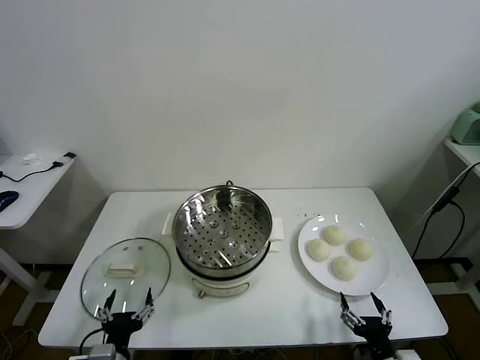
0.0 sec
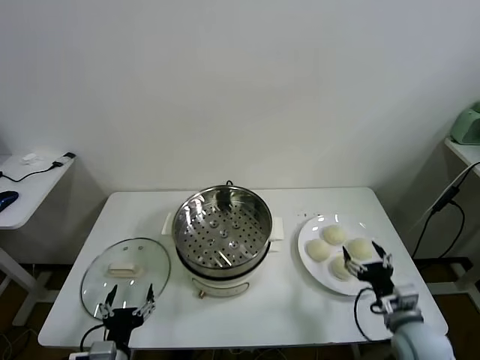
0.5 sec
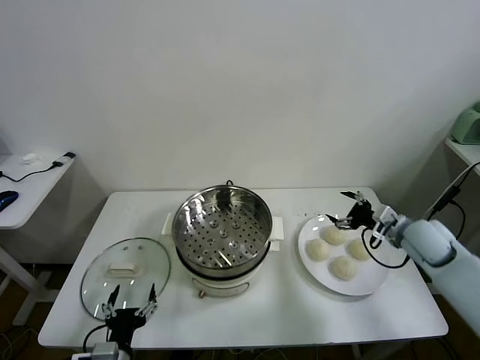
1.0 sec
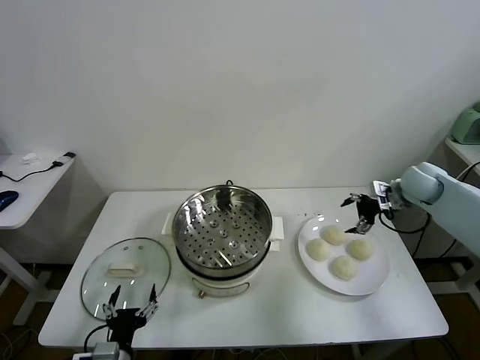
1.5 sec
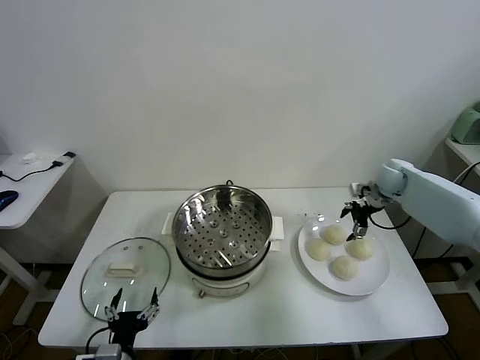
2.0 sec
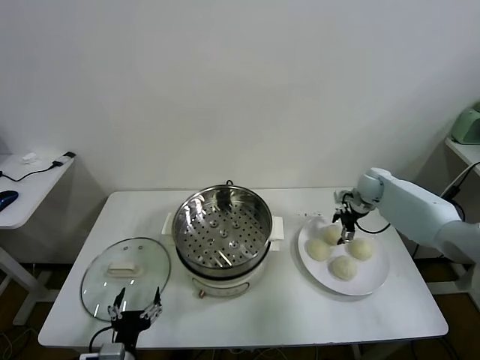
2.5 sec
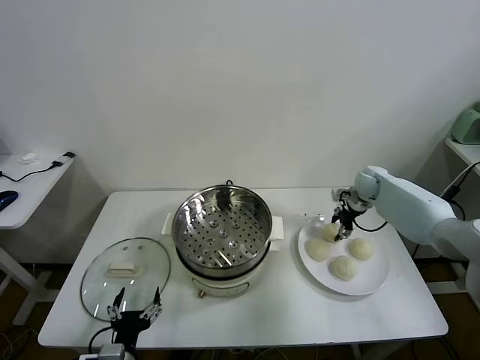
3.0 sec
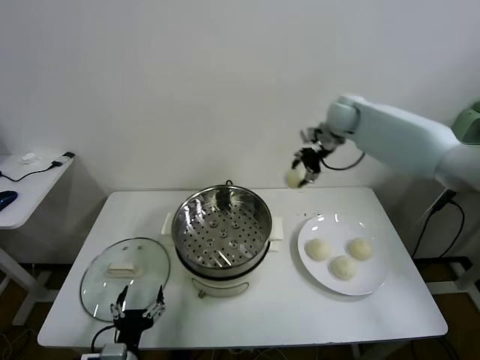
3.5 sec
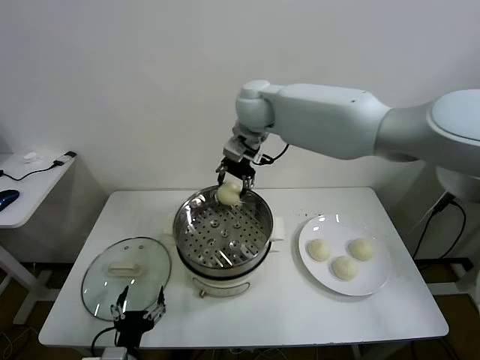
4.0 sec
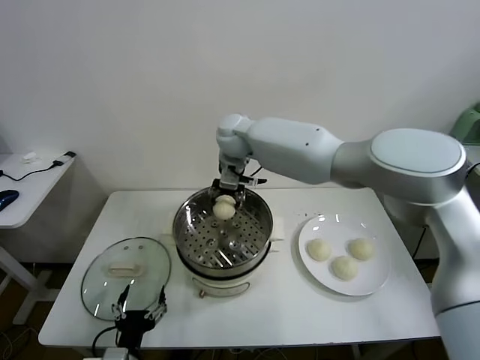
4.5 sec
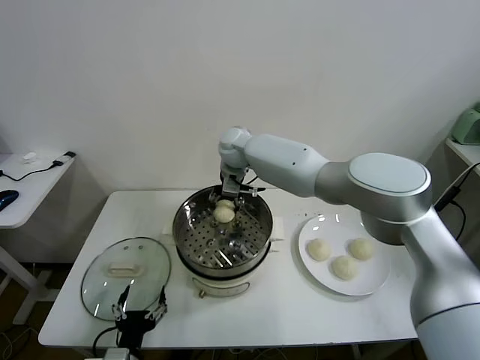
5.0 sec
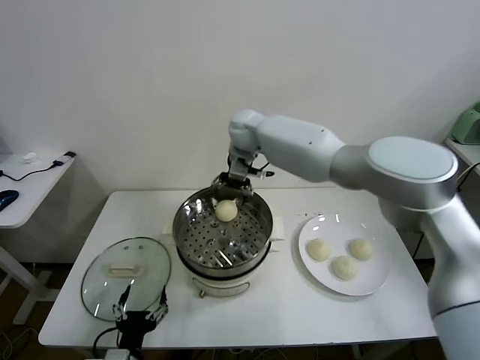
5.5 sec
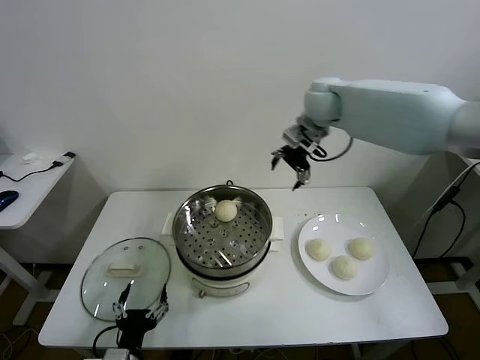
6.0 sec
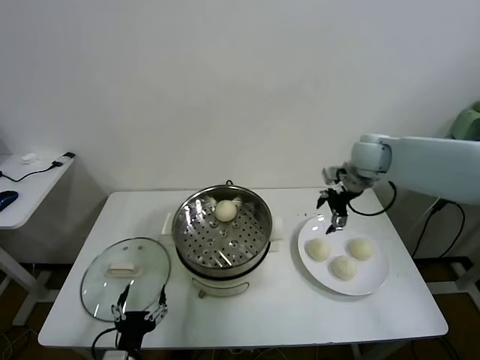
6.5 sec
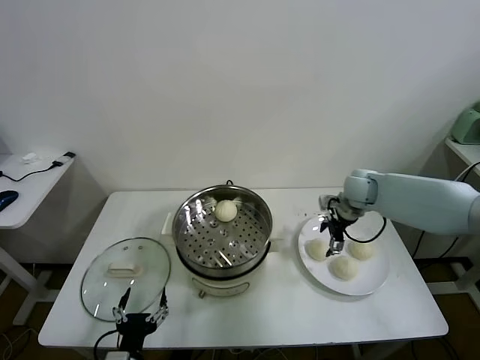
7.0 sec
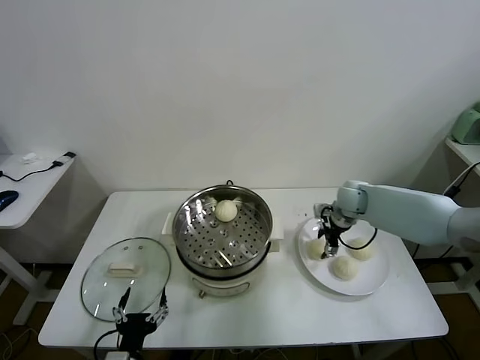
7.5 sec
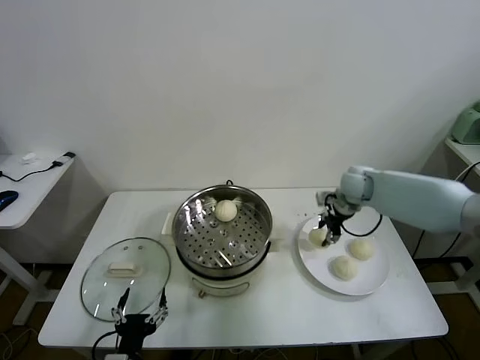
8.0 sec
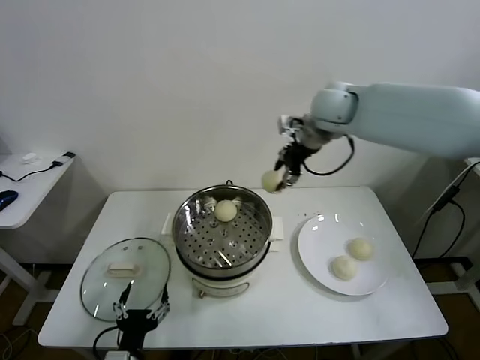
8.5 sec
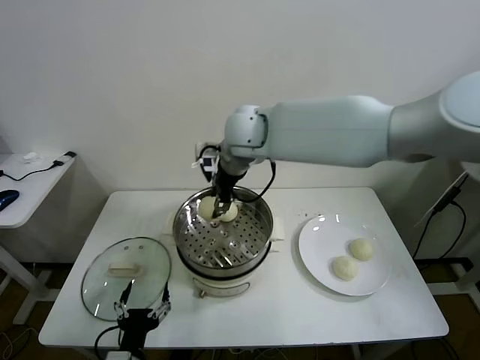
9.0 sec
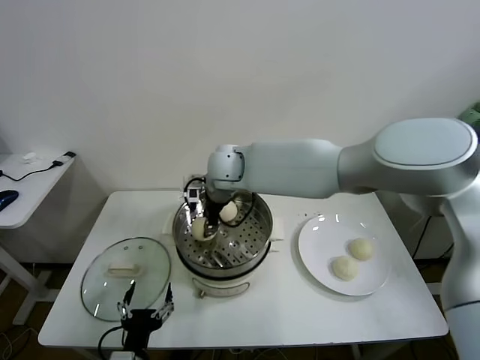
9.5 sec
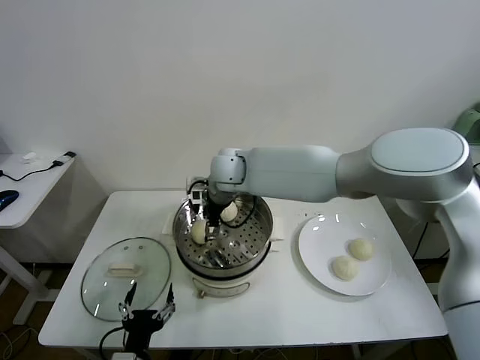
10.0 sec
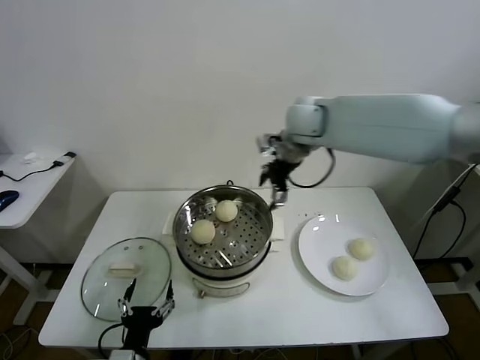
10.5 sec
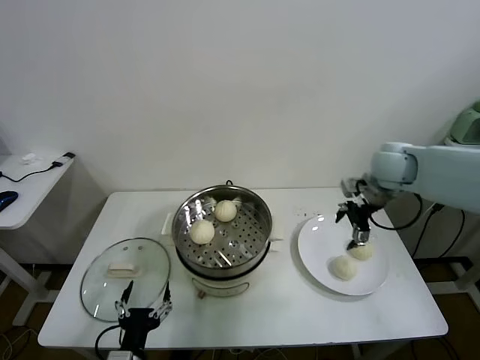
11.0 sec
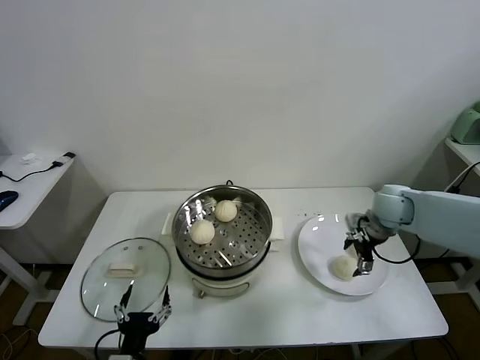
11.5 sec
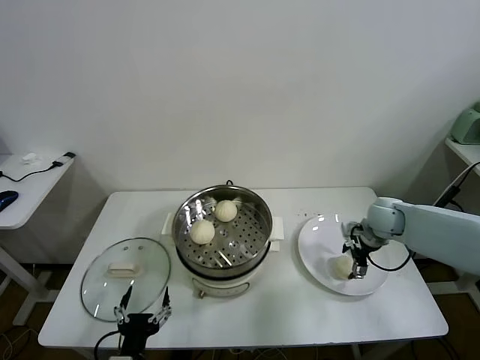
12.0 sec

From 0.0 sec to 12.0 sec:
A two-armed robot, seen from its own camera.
Task of the whole recording: take steamed baozi put them in steamer.
Step, from 0.0 sec to 2.5 sec: Grasp the baozi in the plate with right gripper.
Step, from 3.0 sec to 5.0 sec: Place the baozi on the steamer with right gripper.
Step, from 6.0 sec to 7.5 sec: Grasp the baozi in the plate with right gripper.
Step, from 8.0 sec to 10.0 sec: Place the baozi on the steamer with right gripper.
From 2.0 sec to 4.0 sec: The right gripper heads to the left and upward, covering roughly 40 cm, and closes.
From 4.0 sec to 6.0 sec: The right gripper travels to the right by about 20 cm, and opens.
From 6.0 sec to 8.0 sec: The right gripper goes roughly 20 cm downward and to the right, and closes its fingers.
From 8.0 sec to 10.0 sec: The right gripper moves to the left, approximately 30 cm, and opens.
From 10.0 sec to 12.0 sec: The right gripper is displaced to the right by about 40 cm.

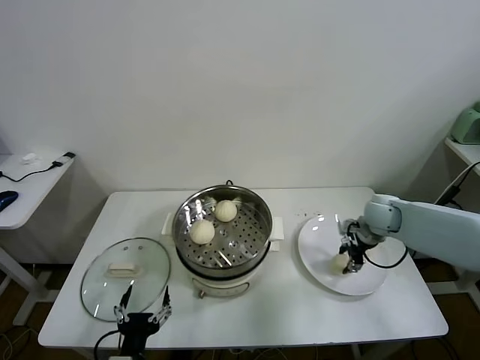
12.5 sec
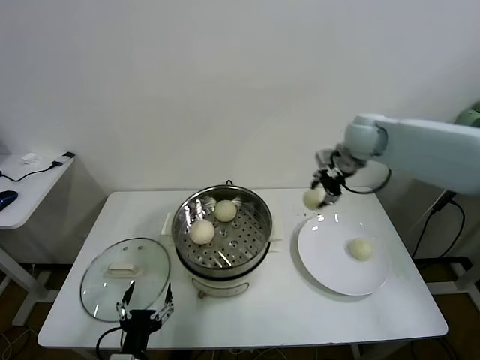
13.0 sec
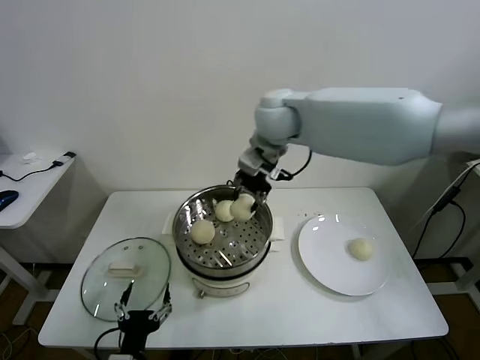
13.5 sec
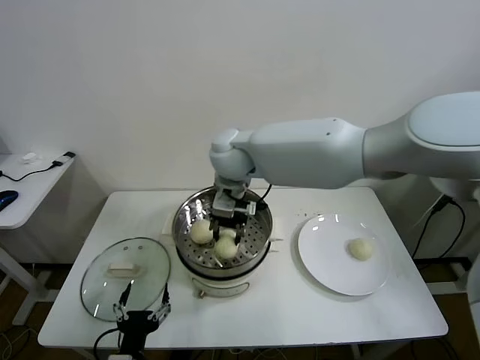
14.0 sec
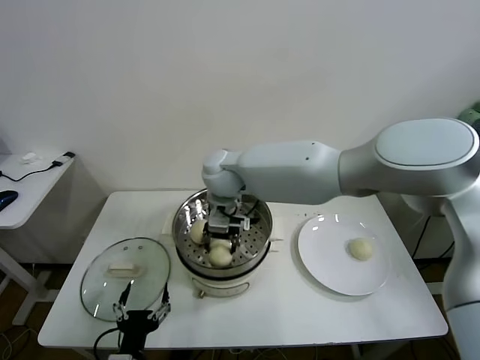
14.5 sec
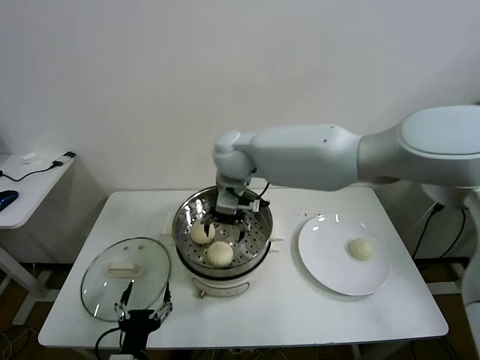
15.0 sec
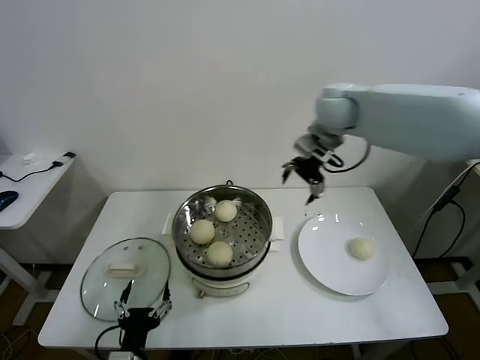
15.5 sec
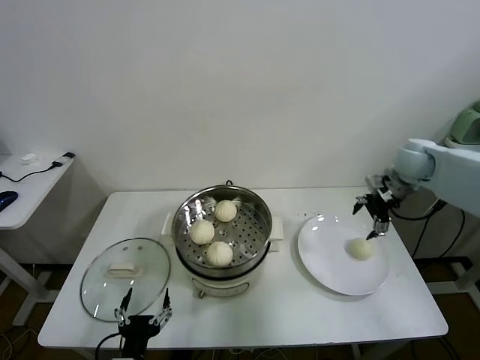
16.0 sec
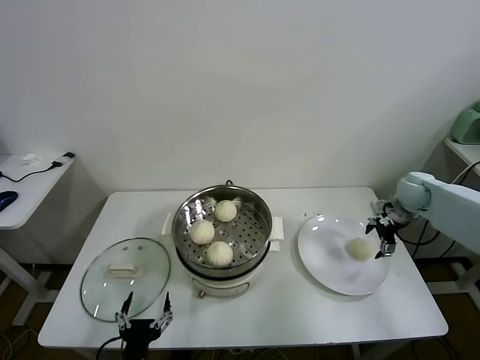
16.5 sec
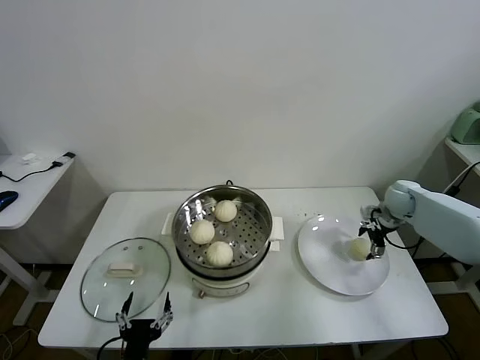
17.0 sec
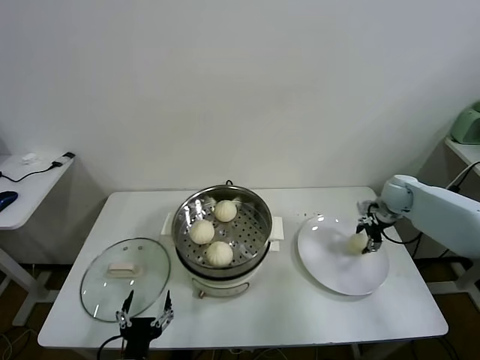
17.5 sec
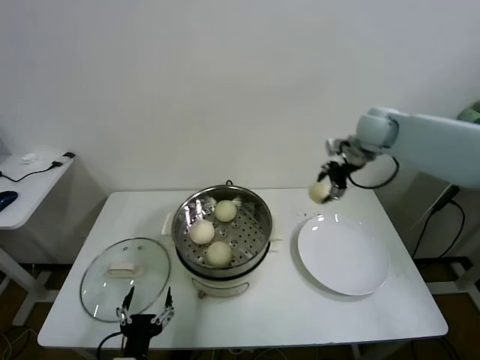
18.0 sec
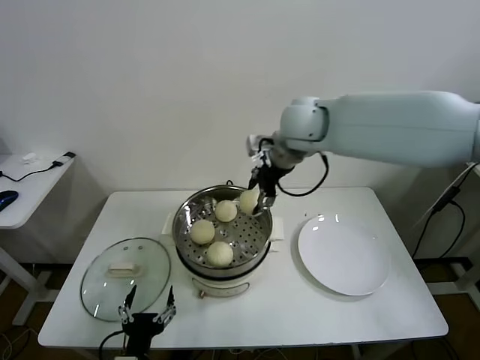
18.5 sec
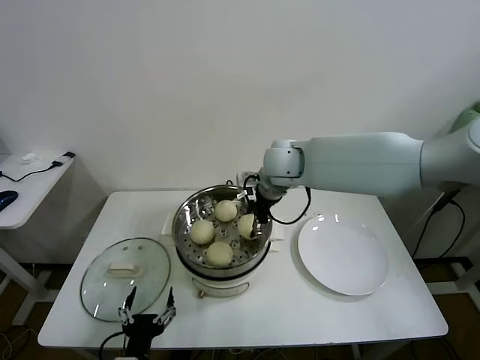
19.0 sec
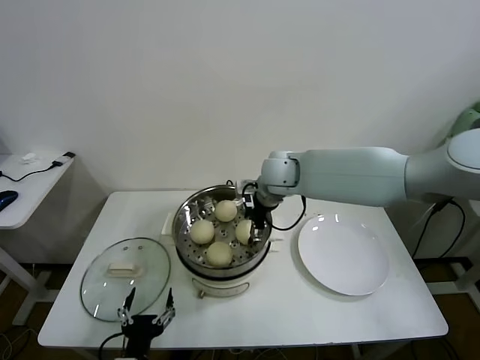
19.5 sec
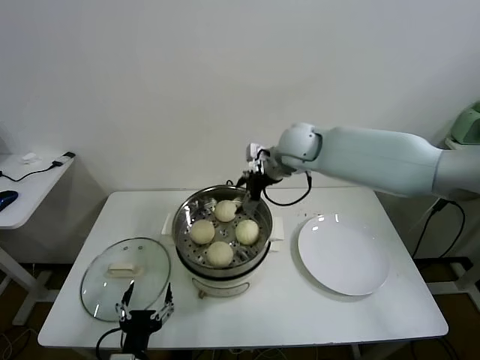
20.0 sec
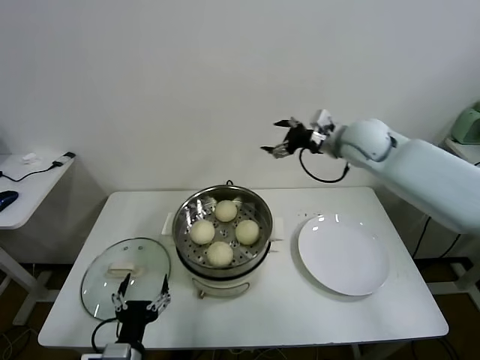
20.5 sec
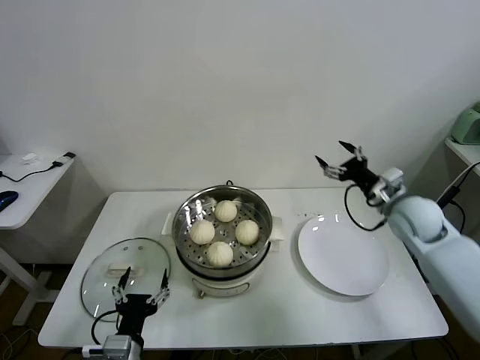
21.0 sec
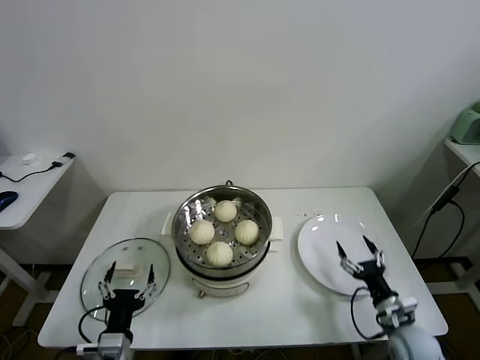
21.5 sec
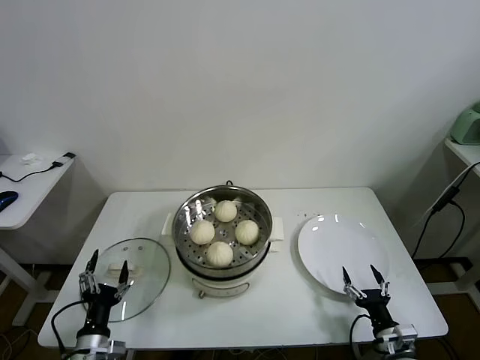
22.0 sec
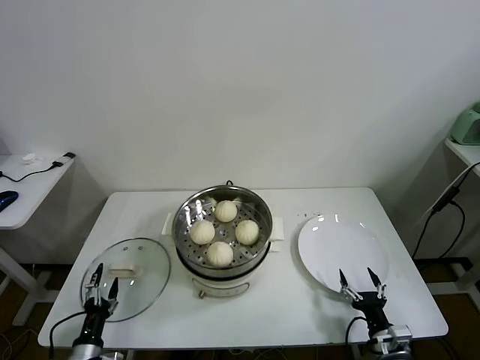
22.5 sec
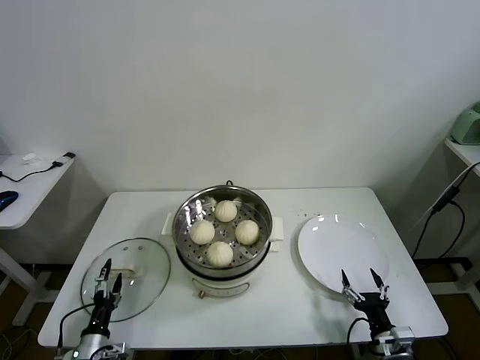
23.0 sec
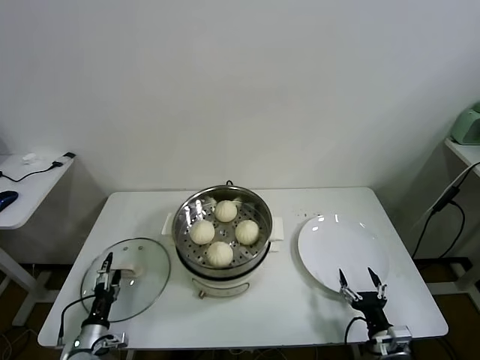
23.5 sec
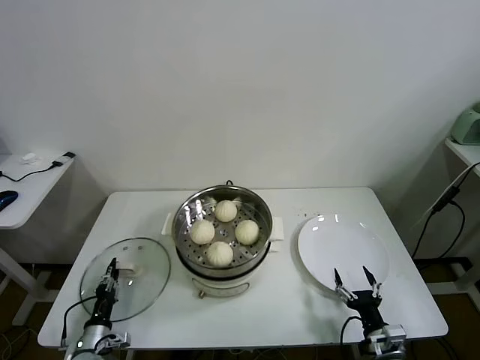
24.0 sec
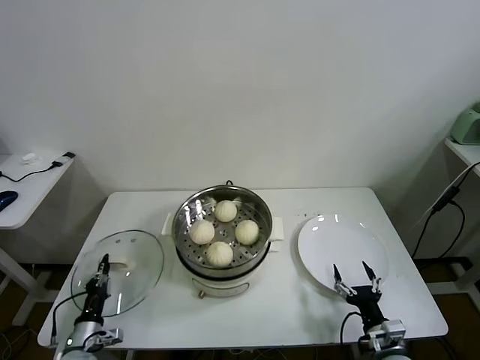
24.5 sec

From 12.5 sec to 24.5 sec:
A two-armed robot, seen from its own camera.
Task of the whole recording: take steamed baozi put them in steamer.
Step, from 12.5 sec to 14.5 sec: Place the baozi on the steamer with right gripper.
Step, from 15.0 sec to 17.0 sec: Grasp the baozi in the plate with right gripper.
Step, from 17.5 sec to 19.5 sec: Place the baozi on the steamer with right gripper.
Step, from 20.0 sec to 24.0 sec: Grasp the pot lid with left gripper.
From 12.5 sec to 14.5 sec: The right gripper moves to the left, approximately 40 cm.
From 14.5 sec to 16.5 sec: The right gripper moves to the right, about 50 cm, and opens its fingers.
From 16.5 sec to 18.5 sec: The right gripper moves to the left and upward, some 40 cm, and closes up.
From 18.5 sec to 20.5 sec: The right gripper goes roughly 15 cm to the right and downward, and opens up.
From 20.5 sec to 22.5 sec: The right gripper is displaced downward and backward by about 50 cm. The left gripper is displaced to the left and downward by approximately 20 cm.
From 22.5 sec to 24.5 sec: The left gripper travels forward by approximately 5 cm, and closes.

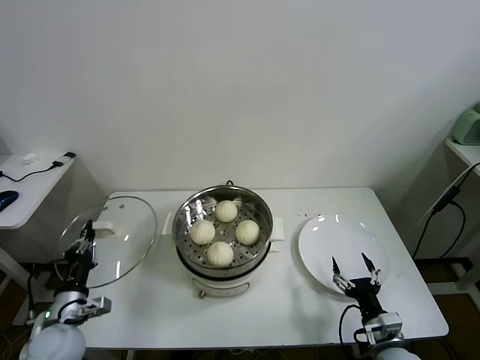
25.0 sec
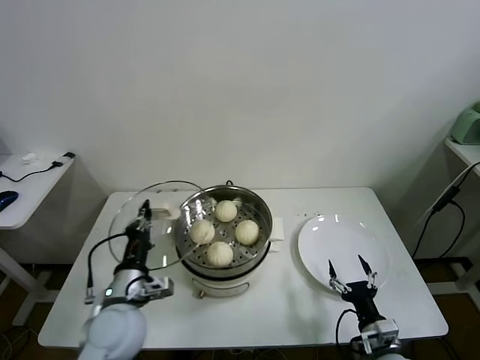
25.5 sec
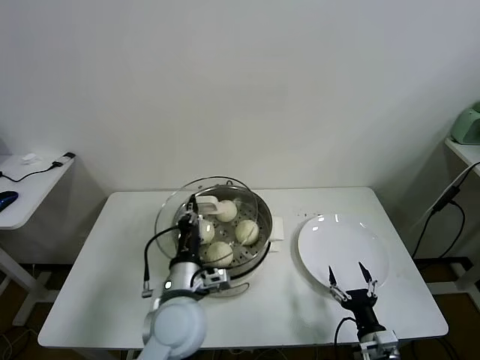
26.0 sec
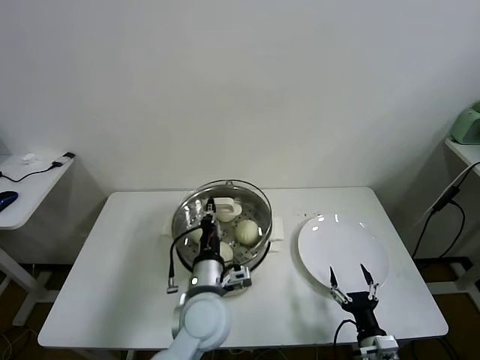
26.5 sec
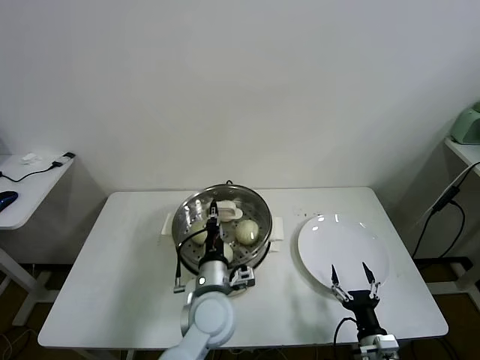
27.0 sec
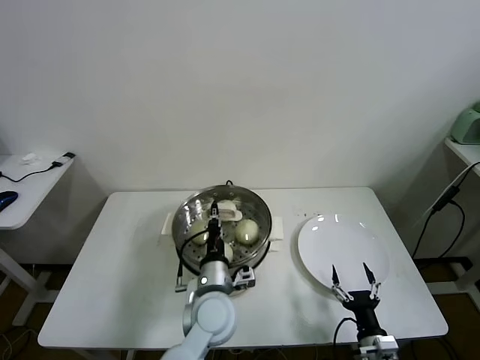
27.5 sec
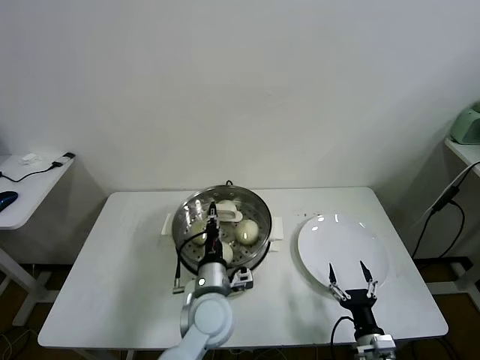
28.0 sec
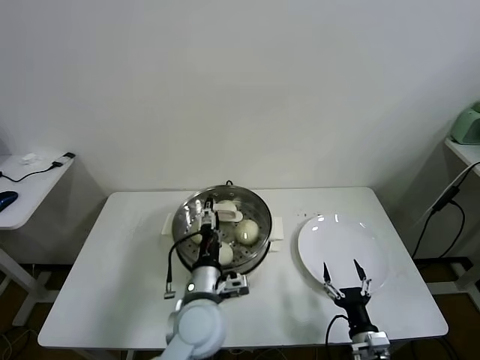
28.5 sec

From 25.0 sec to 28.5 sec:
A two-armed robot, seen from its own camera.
Task of the whole recording: take steamed baozi put them in steamer.
Step, from 25.0 sec to 28.0 sec: Place the pot lid on the steamer with left gripper.
From 25.0 sec to 27.0 sec: The left gripper travels to the right by about 30 cm.
From 27.0 sec to 28.5 sec: The left gripper opens up.
